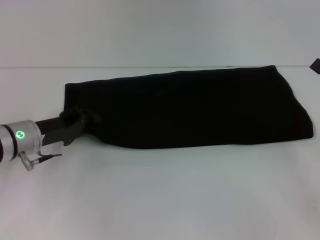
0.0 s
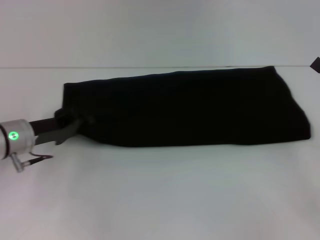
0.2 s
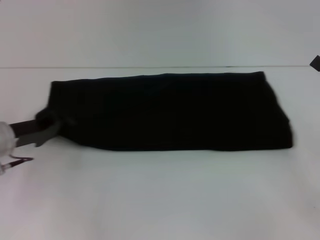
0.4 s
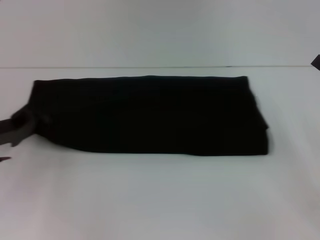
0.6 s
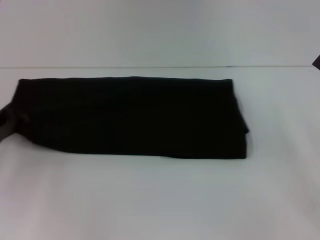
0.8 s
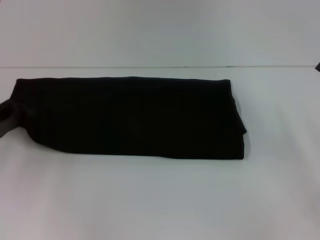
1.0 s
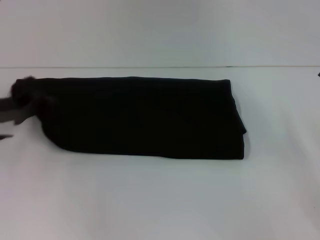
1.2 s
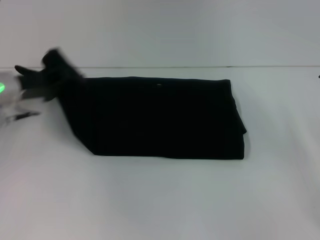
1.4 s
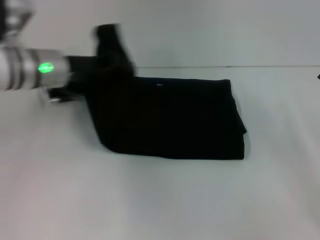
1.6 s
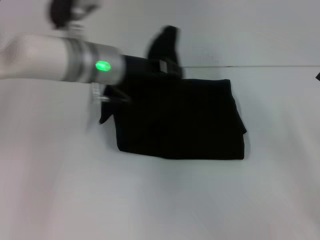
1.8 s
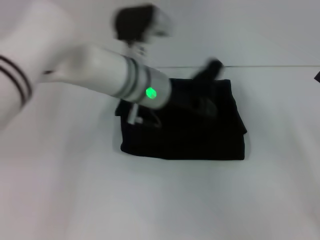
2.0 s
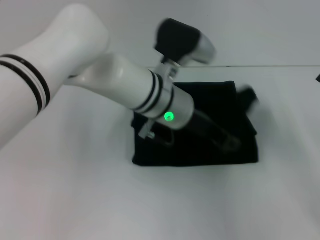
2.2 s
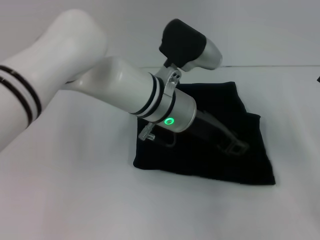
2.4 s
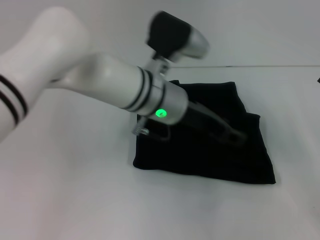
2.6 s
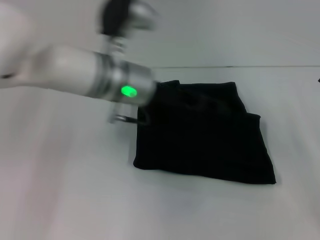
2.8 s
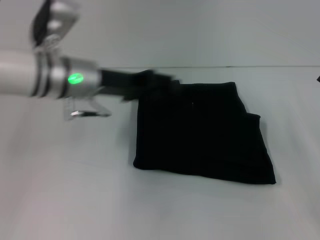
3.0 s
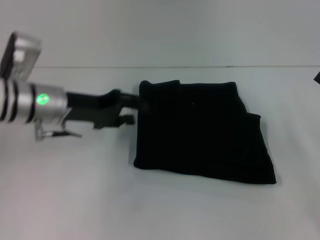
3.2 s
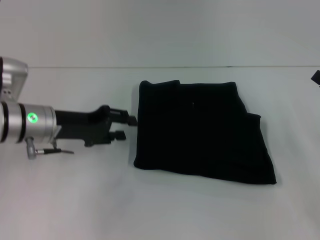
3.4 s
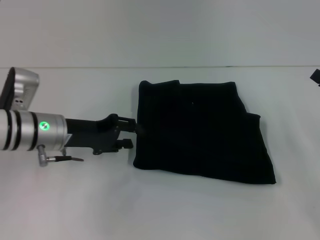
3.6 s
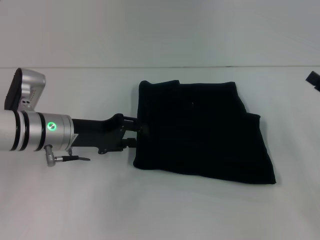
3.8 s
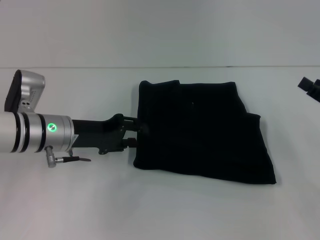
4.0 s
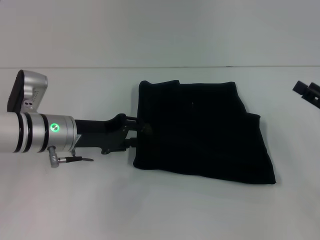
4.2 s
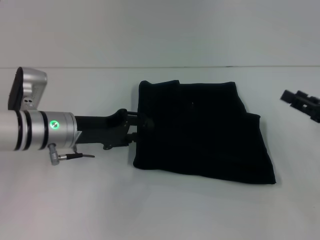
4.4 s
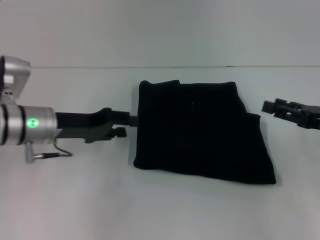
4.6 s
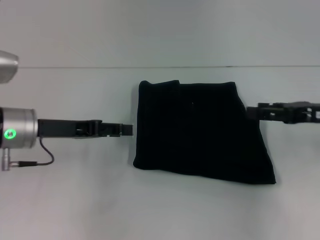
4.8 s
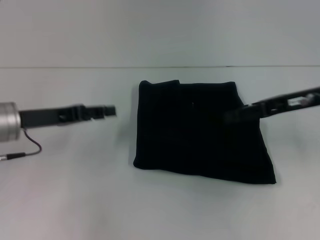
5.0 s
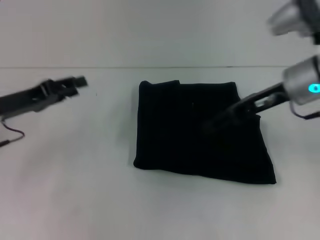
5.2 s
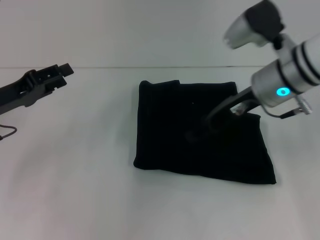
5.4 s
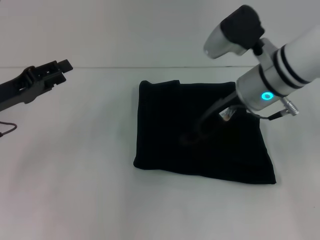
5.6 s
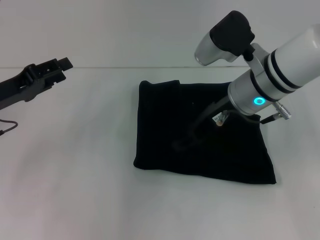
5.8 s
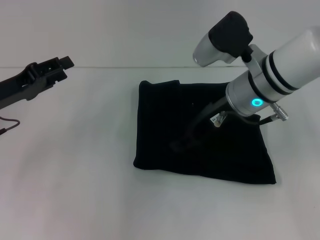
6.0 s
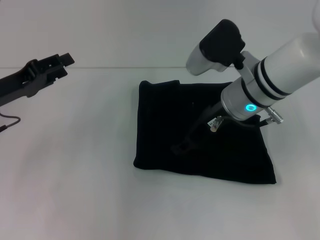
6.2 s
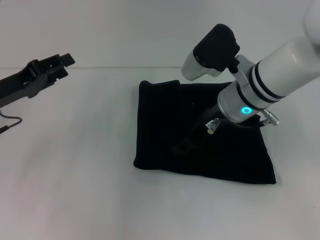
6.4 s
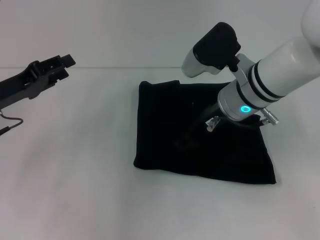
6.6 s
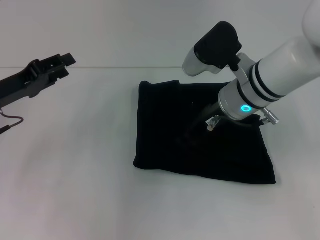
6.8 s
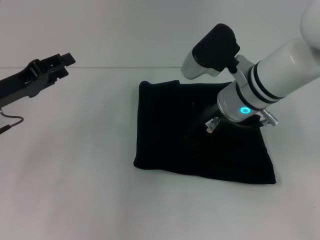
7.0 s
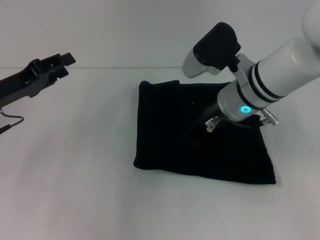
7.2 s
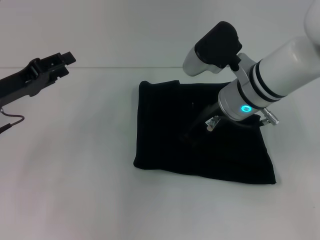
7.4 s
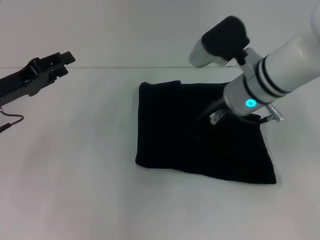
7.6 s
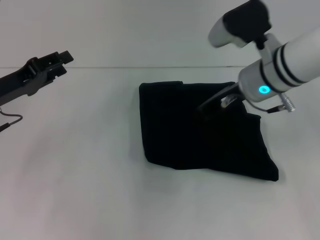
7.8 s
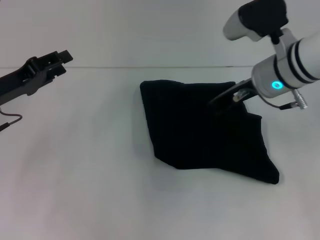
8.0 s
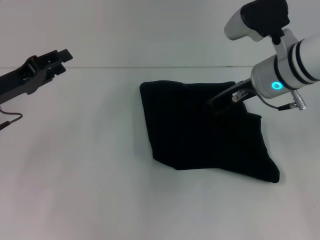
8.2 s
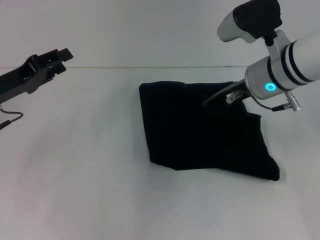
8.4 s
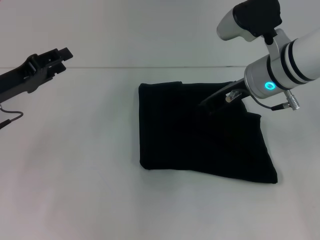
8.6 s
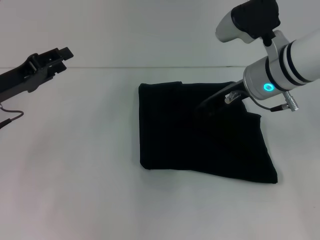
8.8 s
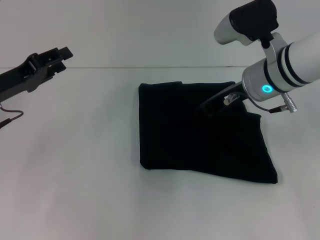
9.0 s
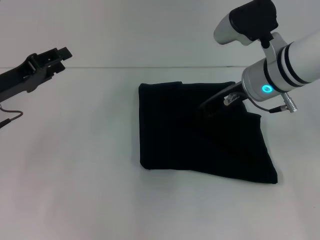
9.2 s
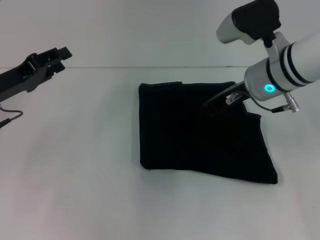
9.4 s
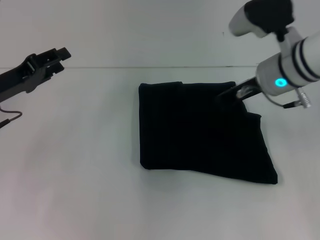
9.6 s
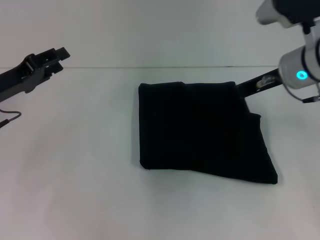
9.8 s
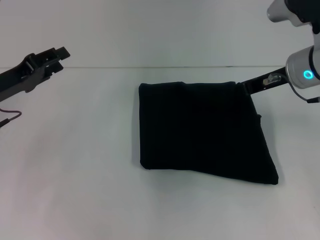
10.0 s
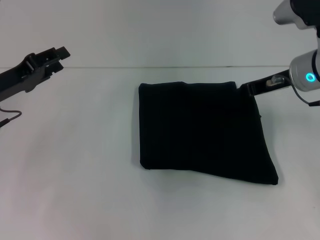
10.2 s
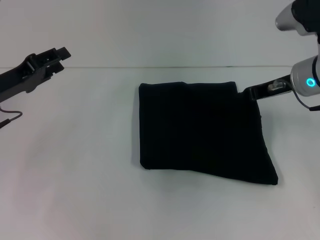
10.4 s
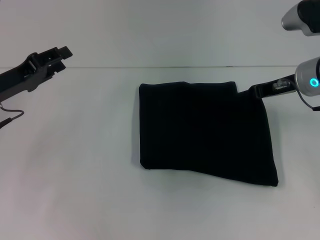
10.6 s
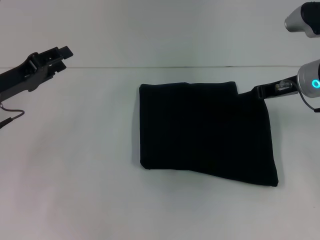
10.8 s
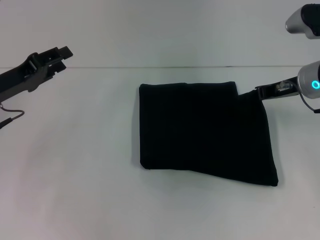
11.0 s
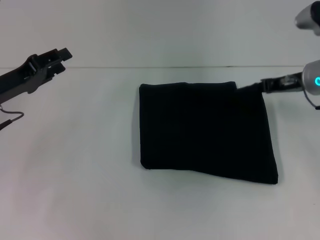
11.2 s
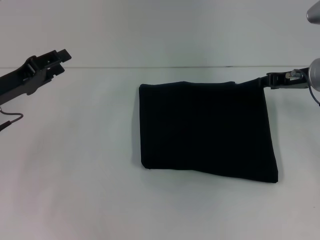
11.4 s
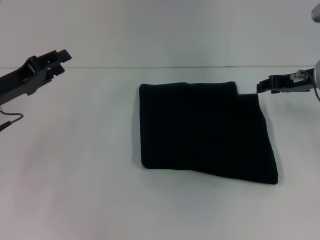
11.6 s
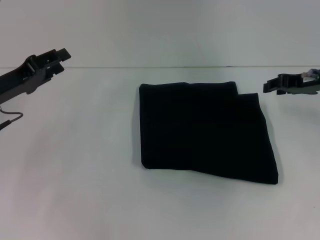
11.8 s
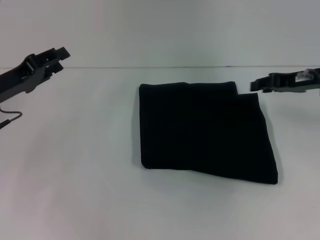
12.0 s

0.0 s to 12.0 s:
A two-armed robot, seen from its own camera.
Step, 0.0 to 3.0 s: Fold the clothes with your left hand.
0.0 to 1.6 s: The left gripper goes about 15 cm upward, forward and to the right.
1.6 to 3.0 s: The left gripper reaches about 20 cm to the right, then returns, and opens up.
3.0 to 4.4 s: The left gripper travels downward by approximately 5 cm.
4.4 to 6.0 s: The left gripper moves to the left, approximately 10 cm; the right gripper travels to the left and forward by about 25 cm.
6.0 to 7.6 s: The right gripper closes up.
7.6 to 9.0 s: There are only small adjustments of the grippers.
9.0 to 10.4 s: The right gripper moves to the right, some 5 cm.
10.4 to 12.0 s: The right gripper shifts roughly 5 cm to the right, and opens.

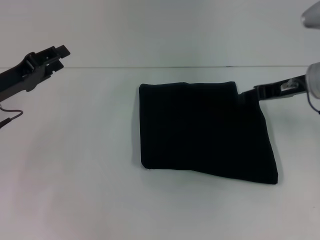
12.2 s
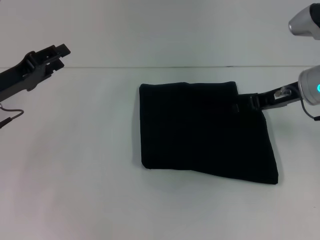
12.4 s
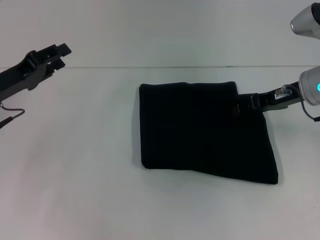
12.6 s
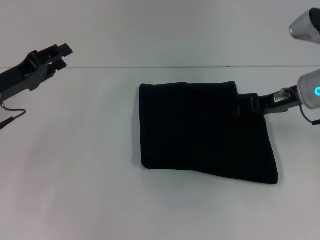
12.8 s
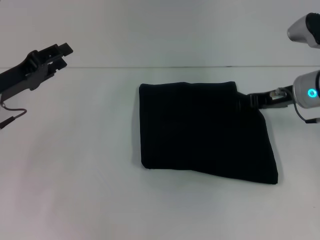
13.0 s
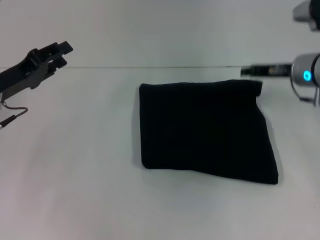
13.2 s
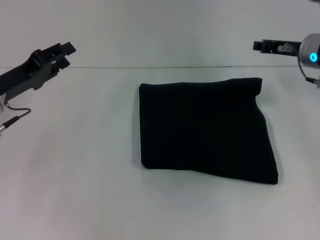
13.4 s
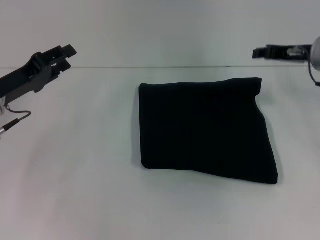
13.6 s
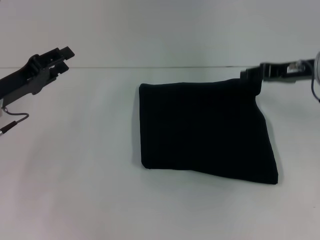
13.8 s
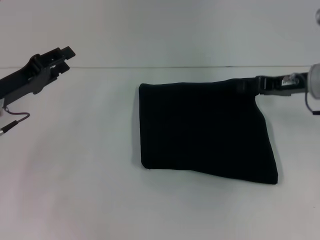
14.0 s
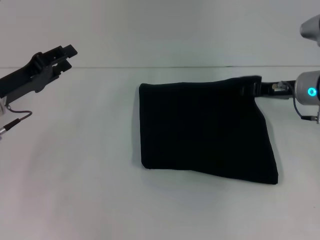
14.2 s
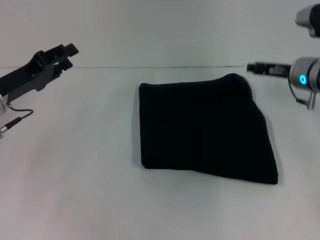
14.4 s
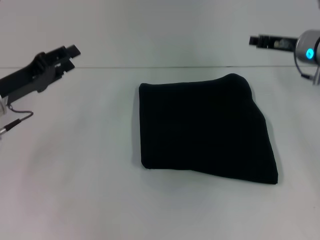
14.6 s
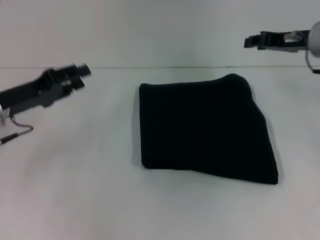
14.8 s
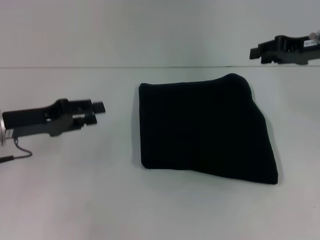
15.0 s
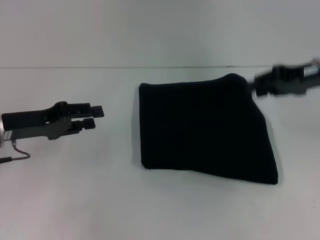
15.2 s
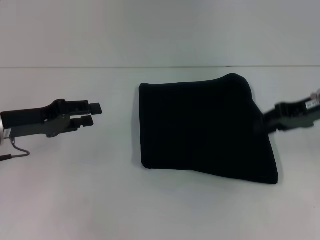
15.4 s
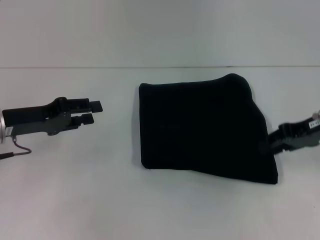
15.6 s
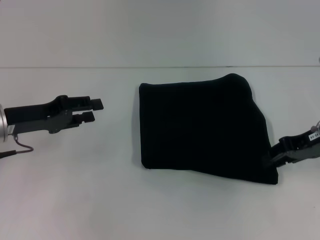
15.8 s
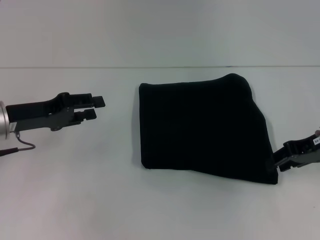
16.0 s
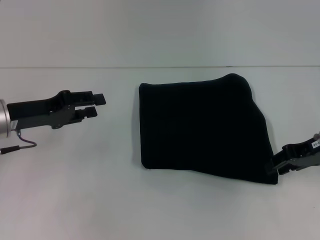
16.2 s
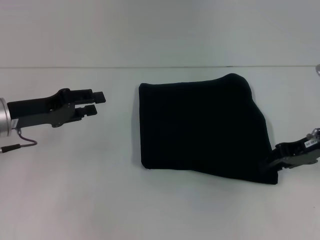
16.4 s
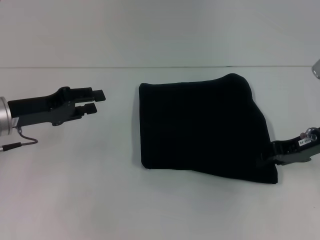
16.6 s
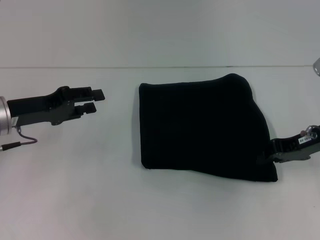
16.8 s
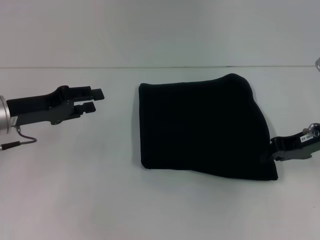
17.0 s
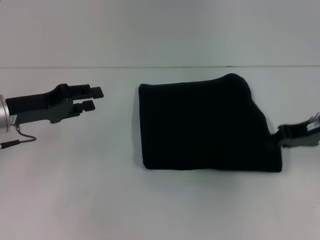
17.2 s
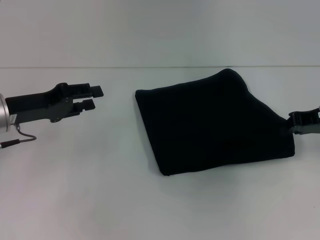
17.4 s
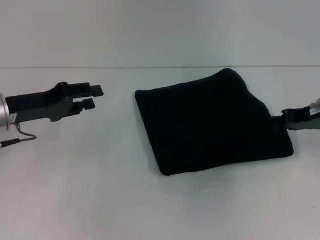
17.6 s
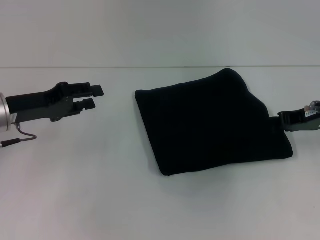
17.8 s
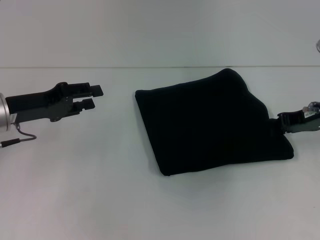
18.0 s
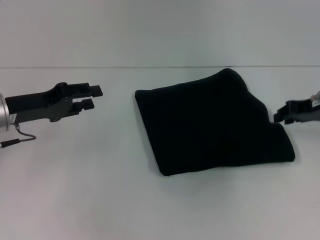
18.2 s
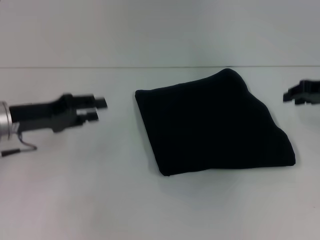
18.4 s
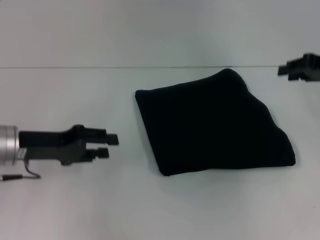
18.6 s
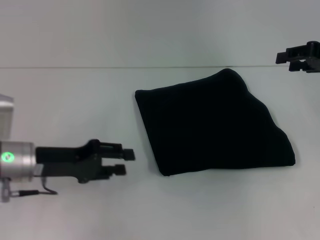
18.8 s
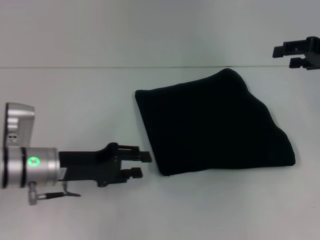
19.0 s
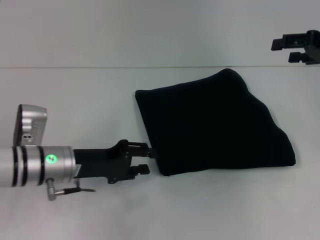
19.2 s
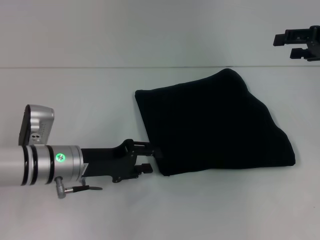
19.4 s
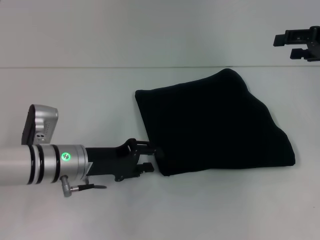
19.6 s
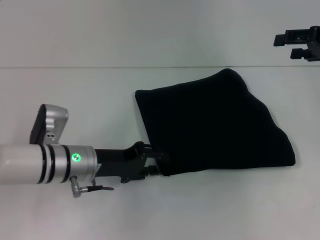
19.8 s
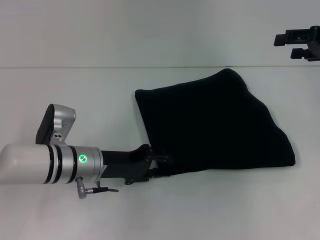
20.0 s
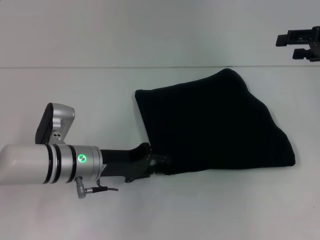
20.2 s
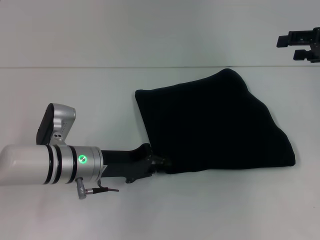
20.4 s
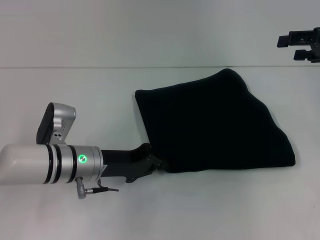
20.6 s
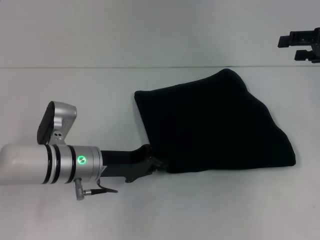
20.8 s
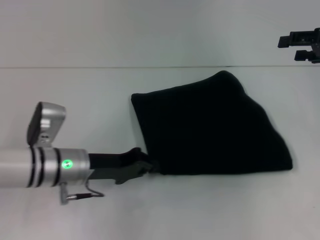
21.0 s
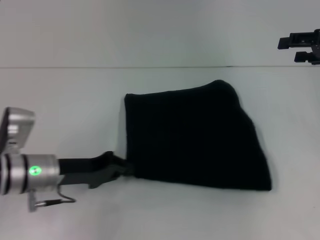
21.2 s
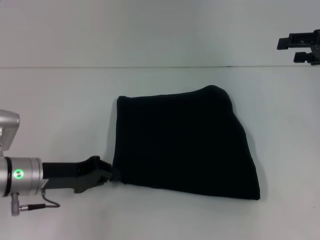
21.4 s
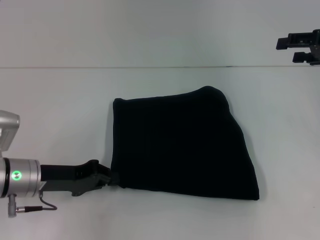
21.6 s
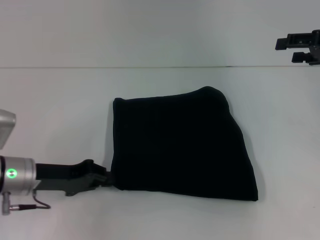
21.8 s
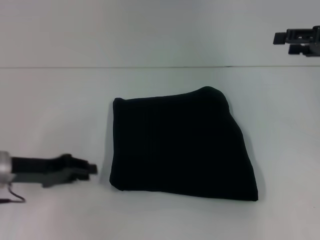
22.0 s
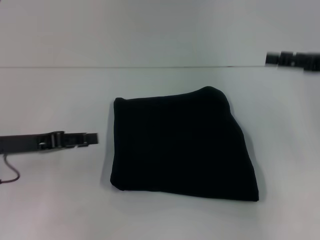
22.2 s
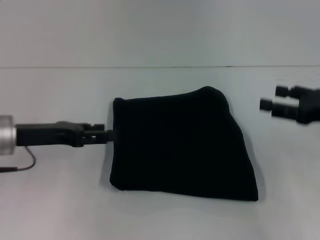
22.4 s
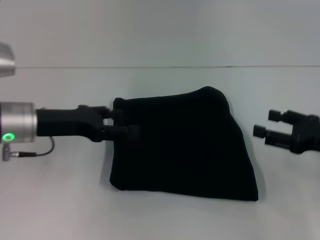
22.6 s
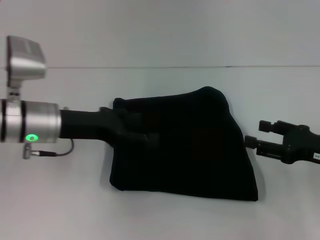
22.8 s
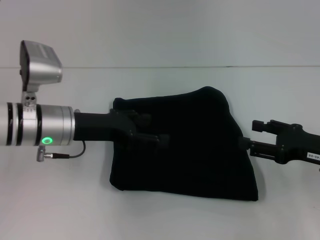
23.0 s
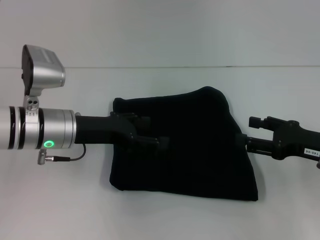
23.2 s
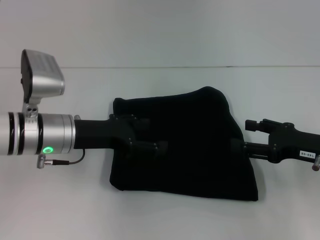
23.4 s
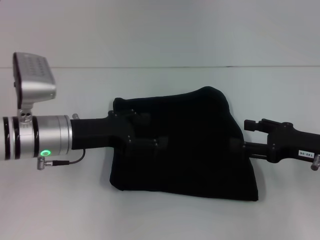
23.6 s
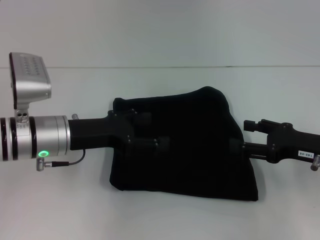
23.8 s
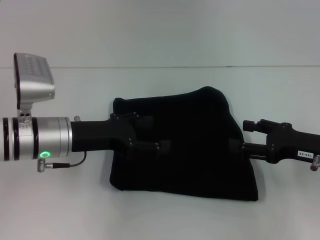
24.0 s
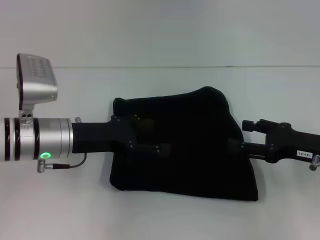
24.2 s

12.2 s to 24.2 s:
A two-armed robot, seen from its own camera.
13.8 to 15.2 s: The right gripper goes downward and returns, approximately 5 cm each way.
15.2 to 16.6 s: The right gripper goes roughly 5 cm downward.
16.6 to 18.2 s: The right gripper moves about 5 cm.
18.2 to 19.8 s: The left gripper heads to the right and downward, covering some 15 cm, while the right gripper moves upward, about 5 cm, and opens.
19.8 to 21.2 s: The left gripper moves to the left, about 5 cm, and closes up.
21.2 to 22.6 s: The left gripper goes about 10 cm upward, and opens up; the right gripper moves downward and backward, approximately 15 cm.
22.6 to 24.2 s: The left gripper moves about 5 cm.
